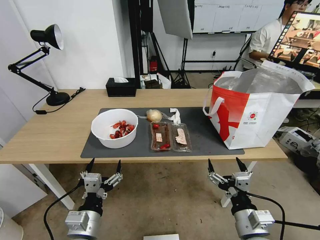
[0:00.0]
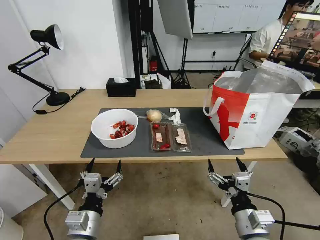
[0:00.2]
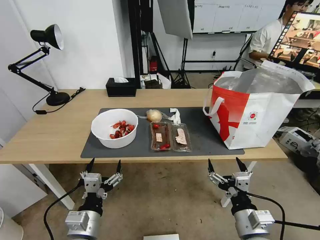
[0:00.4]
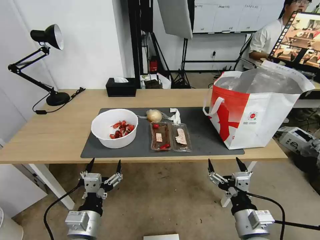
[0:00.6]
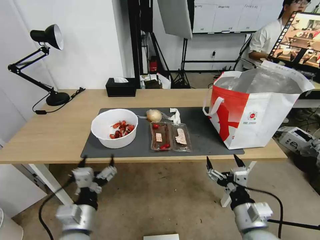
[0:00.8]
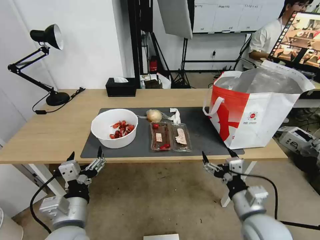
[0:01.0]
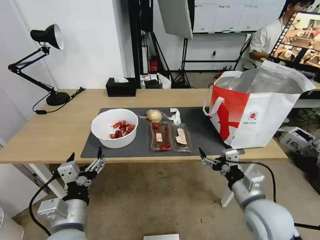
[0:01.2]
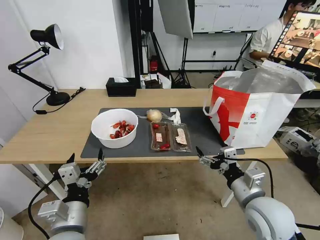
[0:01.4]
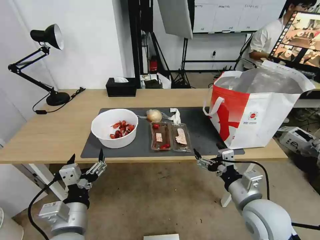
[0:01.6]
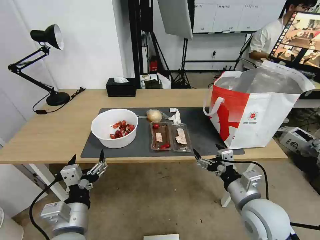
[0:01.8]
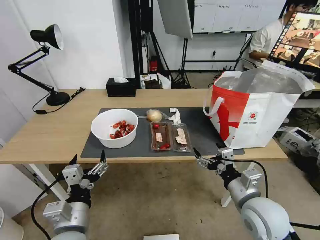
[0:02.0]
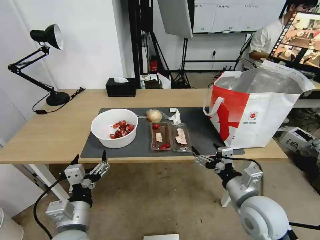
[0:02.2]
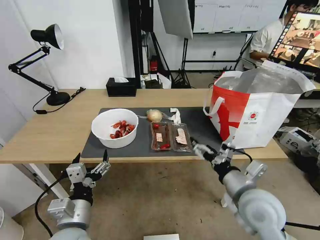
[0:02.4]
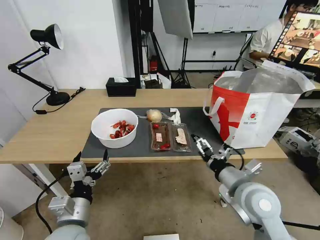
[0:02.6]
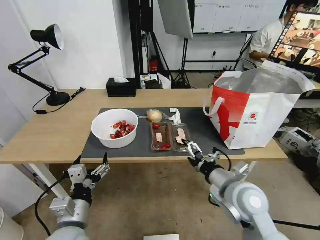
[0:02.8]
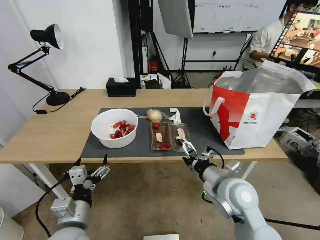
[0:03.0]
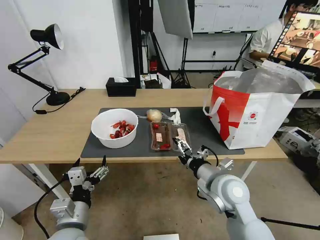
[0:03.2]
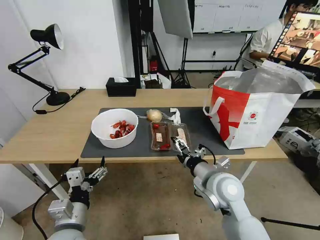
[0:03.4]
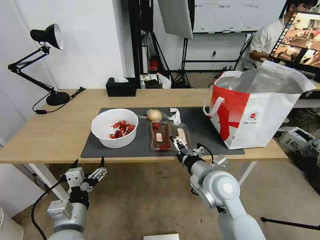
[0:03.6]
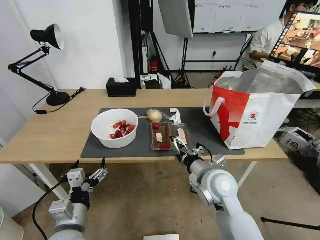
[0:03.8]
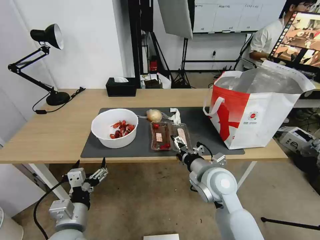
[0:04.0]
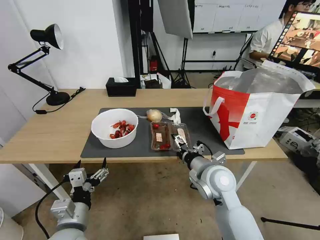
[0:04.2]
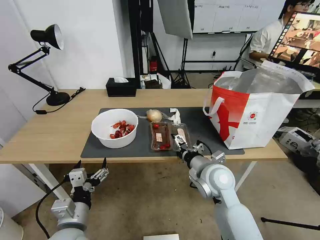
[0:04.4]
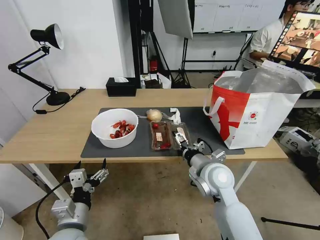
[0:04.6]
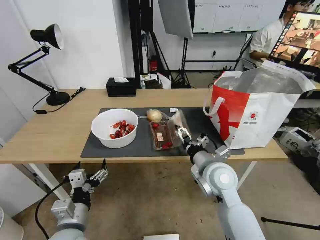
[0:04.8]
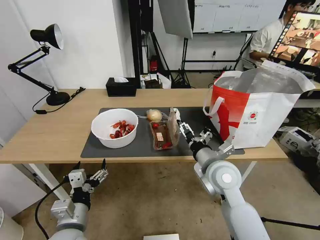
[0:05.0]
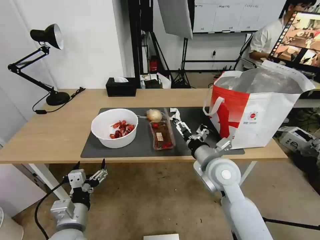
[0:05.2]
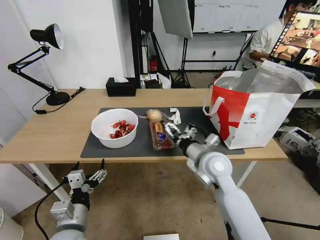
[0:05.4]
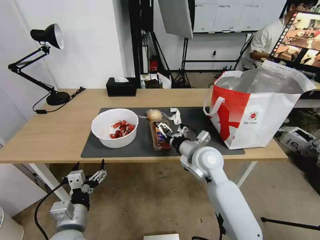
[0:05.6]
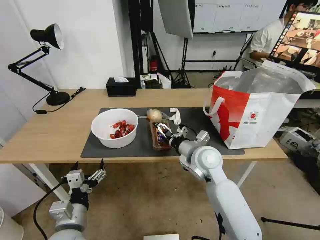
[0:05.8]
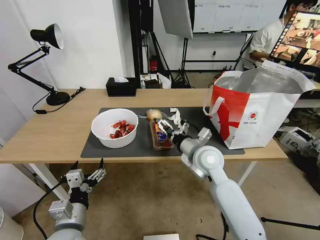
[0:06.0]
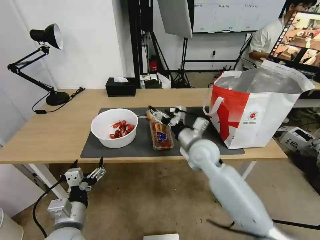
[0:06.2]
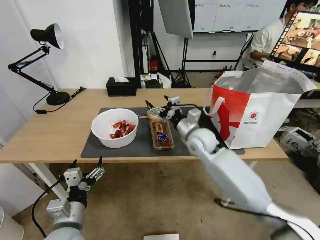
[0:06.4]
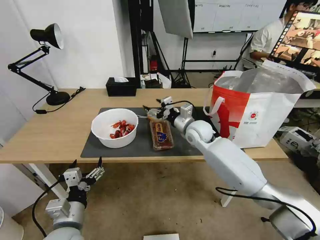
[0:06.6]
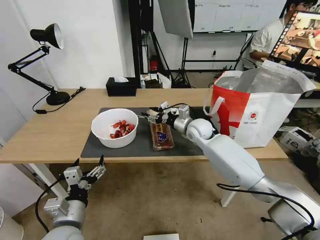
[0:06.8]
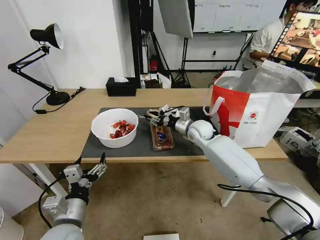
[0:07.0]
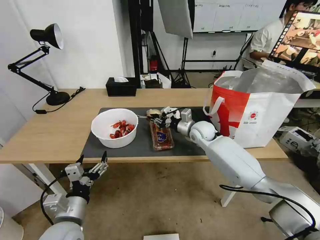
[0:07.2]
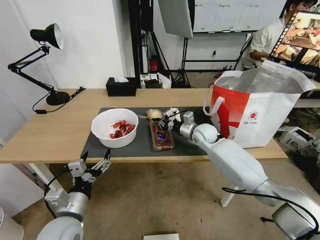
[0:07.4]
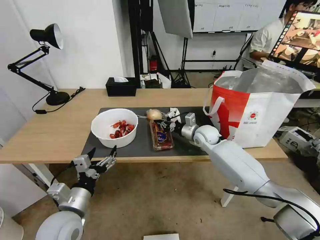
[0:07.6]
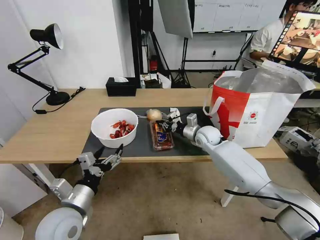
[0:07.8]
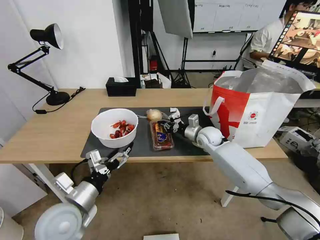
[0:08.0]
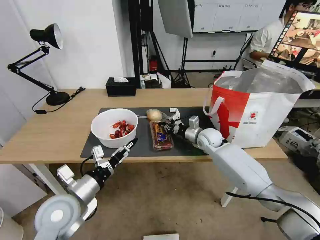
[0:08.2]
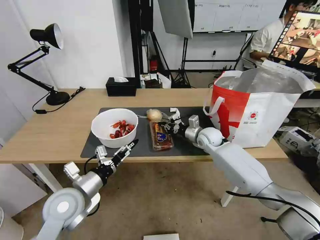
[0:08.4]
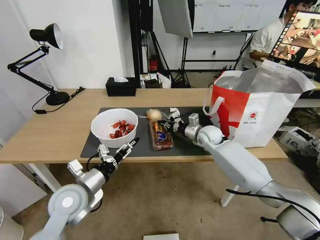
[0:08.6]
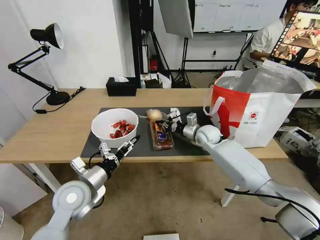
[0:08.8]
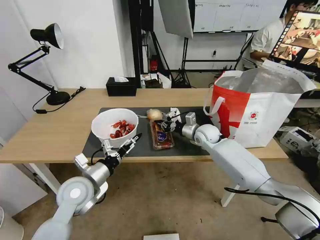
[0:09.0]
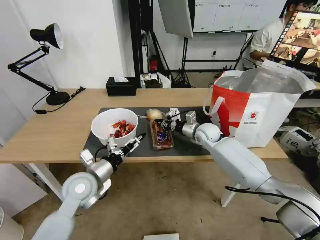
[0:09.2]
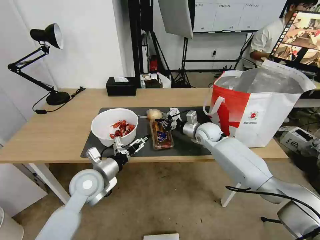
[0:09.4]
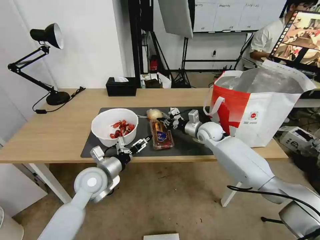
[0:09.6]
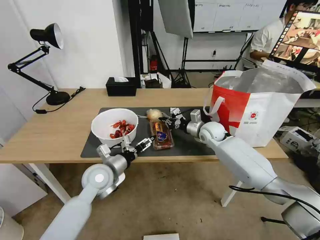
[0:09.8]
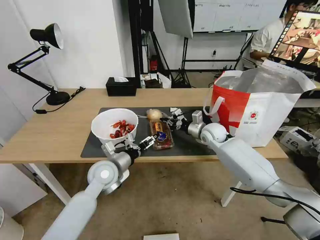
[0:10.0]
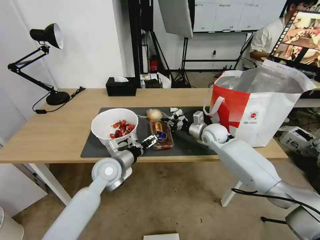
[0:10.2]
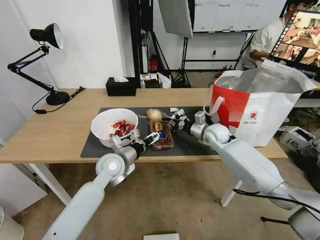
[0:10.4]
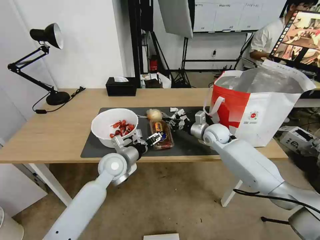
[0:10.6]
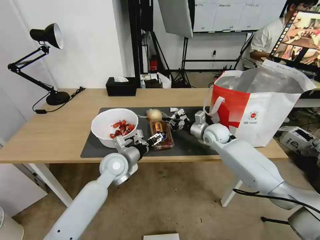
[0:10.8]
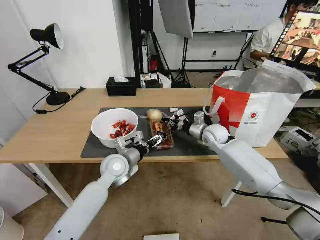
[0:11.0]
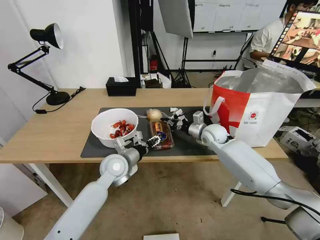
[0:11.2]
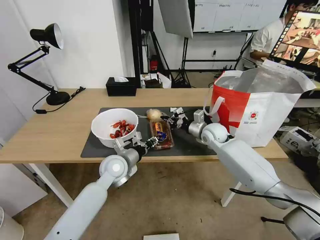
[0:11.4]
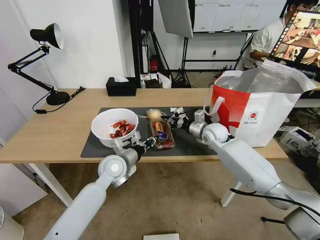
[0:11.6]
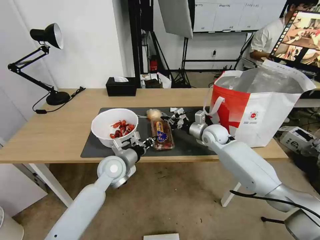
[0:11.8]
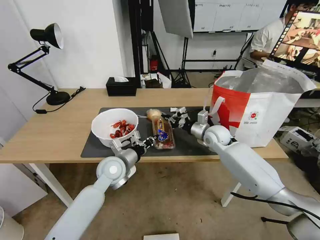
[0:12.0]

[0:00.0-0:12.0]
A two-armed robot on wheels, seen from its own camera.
Task of the whole recording: Pick up the trash from the table and place it into the takeout bag.
0:01.6 to 0:03.0: The right gripper heads forward and to the left, covering roughly 10 cm.
0:03.0 to 0:04.4: The right gripper heads forward, covering some 5 cm.
0:04.4 to 0:06.0: The right gripper is displaced forward by approximately 5 cm.
0:06.0 to 0:07.6: The right gripper heads forward, covering roughly 15 cm, and closes.
0:07.6 to 0:09.0: The left gripper goes roughly 10 cm forward.
0:09.0 to 0:10.4: The left gripper moves forward and to the right, approximately 10 cm.
0:10.4 to 0:12.0: The left gripper closes its fingers.

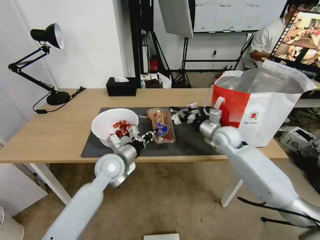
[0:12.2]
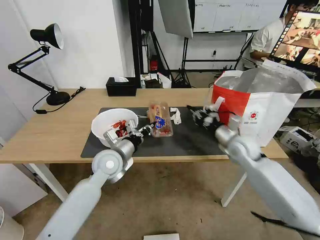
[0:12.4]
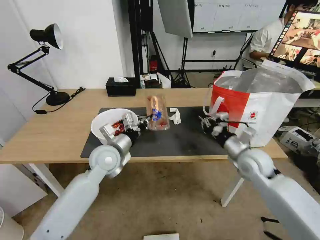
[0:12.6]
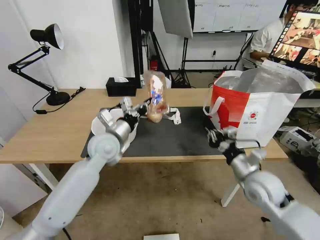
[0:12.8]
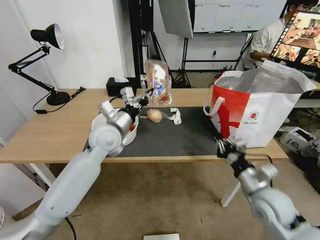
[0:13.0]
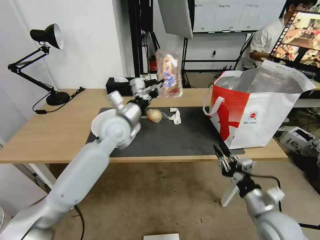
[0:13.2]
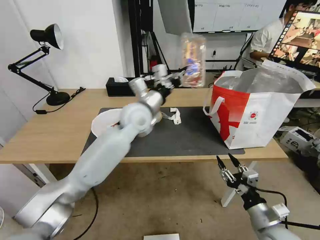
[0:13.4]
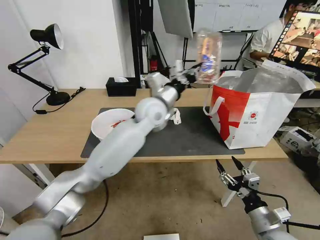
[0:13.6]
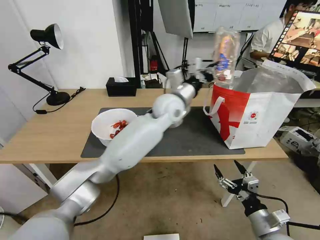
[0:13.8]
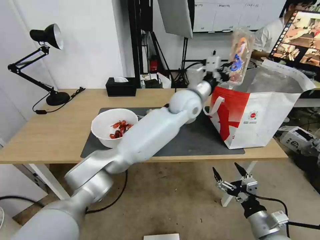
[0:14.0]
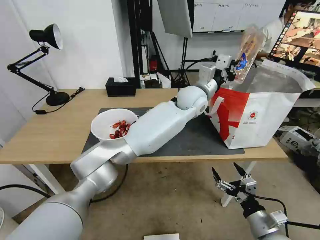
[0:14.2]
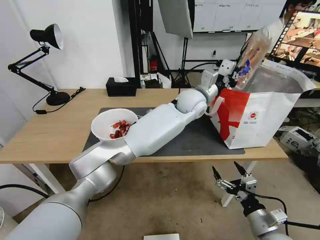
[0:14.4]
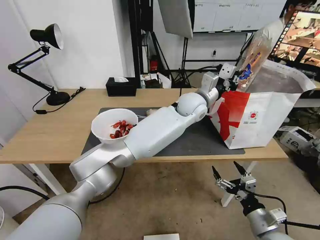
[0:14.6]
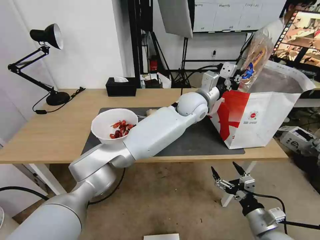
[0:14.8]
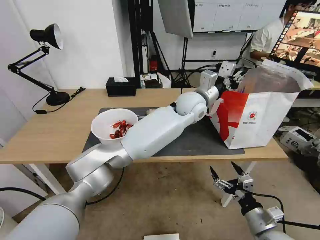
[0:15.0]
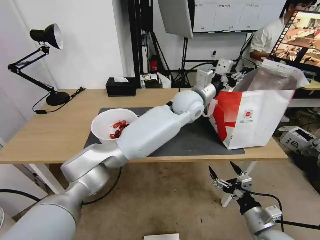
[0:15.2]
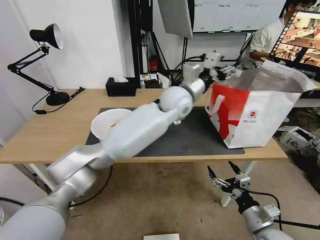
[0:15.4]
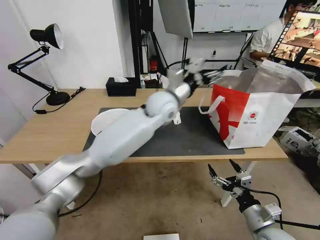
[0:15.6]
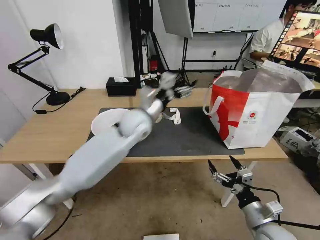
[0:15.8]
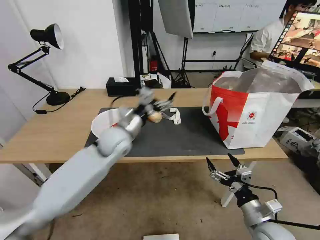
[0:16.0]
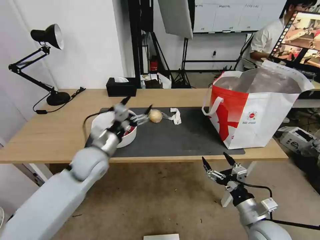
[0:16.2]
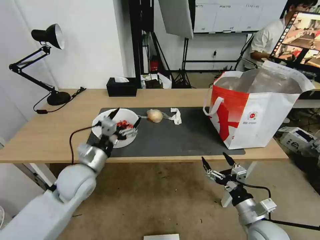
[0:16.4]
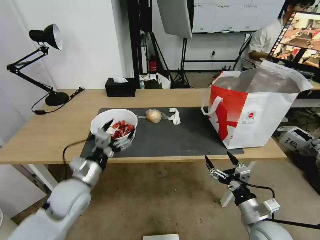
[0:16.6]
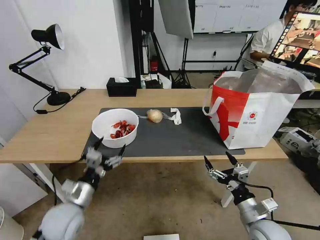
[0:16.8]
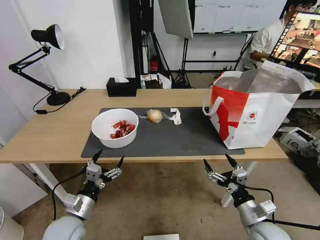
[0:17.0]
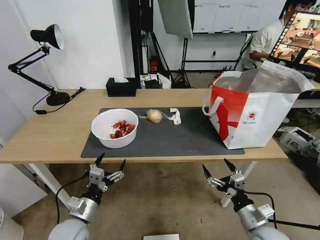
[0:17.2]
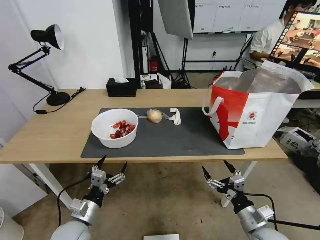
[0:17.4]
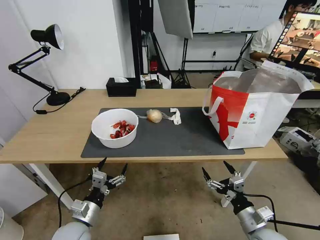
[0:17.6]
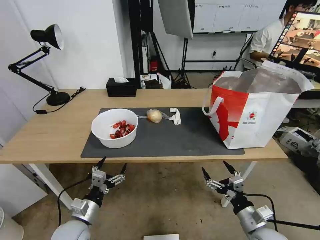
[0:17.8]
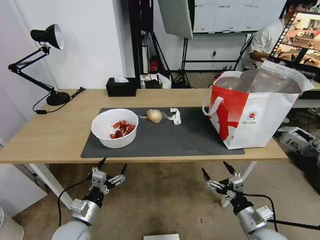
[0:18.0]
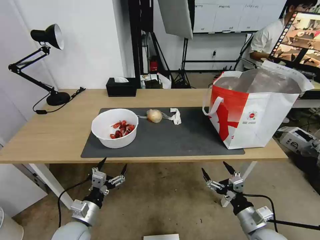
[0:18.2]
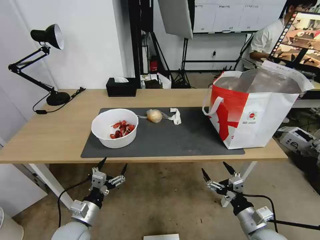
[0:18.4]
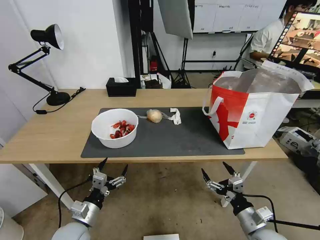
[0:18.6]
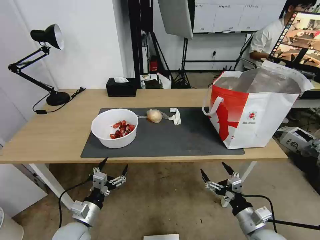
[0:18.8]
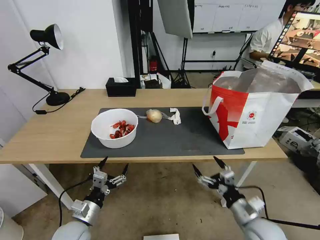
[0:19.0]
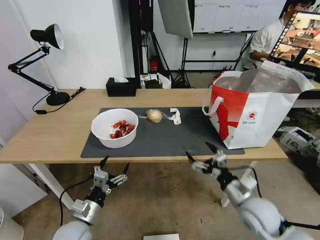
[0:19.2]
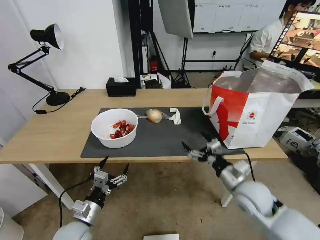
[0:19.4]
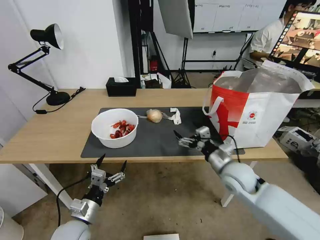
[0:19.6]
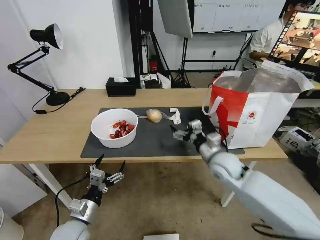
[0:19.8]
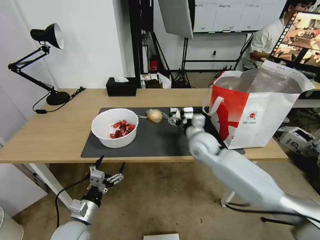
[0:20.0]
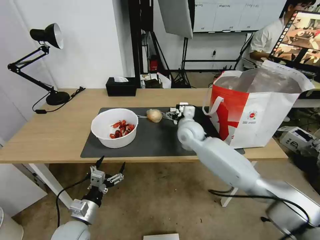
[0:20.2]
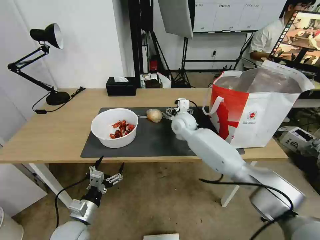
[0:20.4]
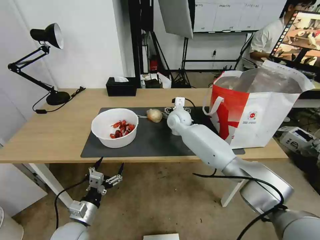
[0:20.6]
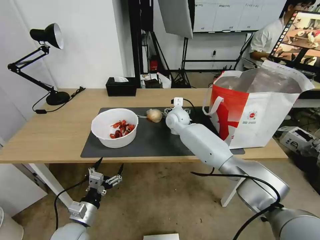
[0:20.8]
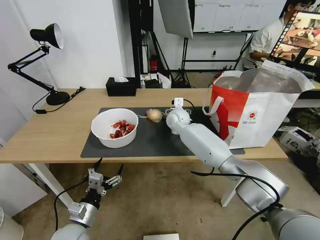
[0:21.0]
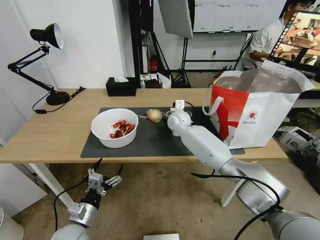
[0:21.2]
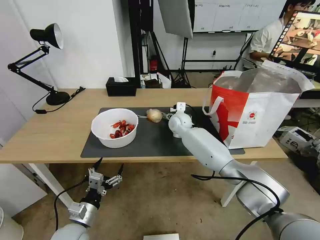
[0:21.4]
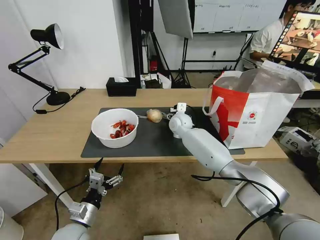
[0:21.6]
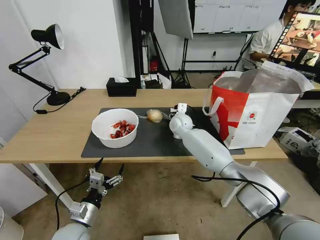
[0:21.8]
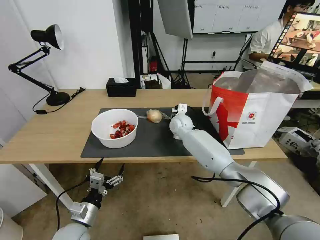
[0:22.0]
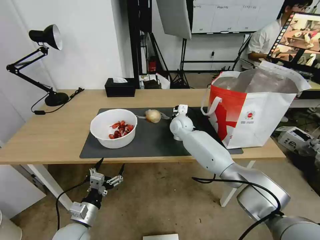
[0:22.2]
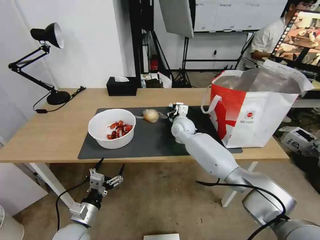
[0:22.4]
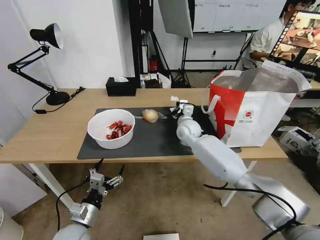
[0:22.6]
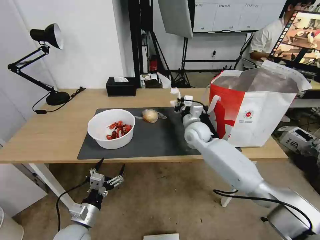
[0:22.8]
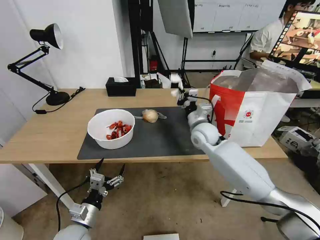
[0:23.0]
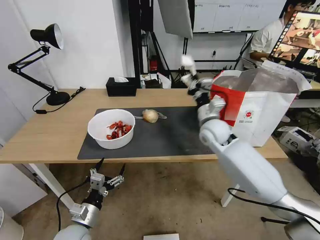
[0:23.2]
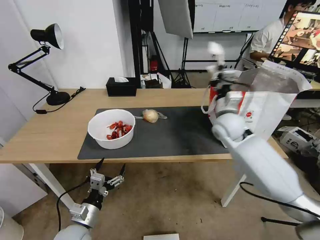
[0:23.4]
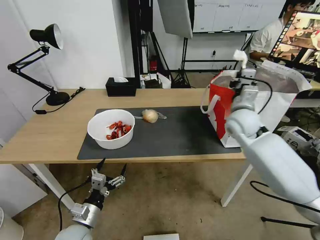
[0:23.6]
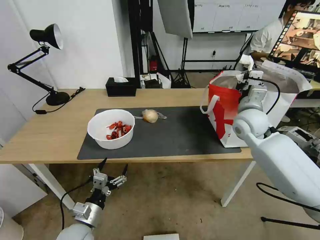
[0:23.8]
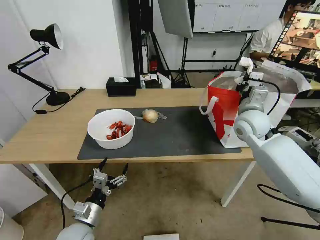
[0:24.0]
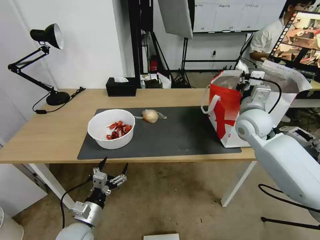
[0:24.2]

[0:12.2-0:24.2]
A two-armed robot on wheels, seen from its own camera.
Task of the whole recording: Pick up the trash from the table and place it into the takeout bag.
0:12.2 to 0:13.8: The right gripper heads backward, covering approximately 35 cm, and opens up. Meanwhile the left gripper shifts about 30 cm to the right, upward and forward.
0:13.8 to 0:15.2: The left gripper opens up.
0:15.2 to 0:16.6: The left gripper is displaced to the left, backward and downward by approximately 50 cm, and opens up.
0:16.6 to 0:18.2: The left gripper is displaced downward and backward by approximately 10 cm.
0:18.2 to 0:19.8: The right gripper travels forward, to the left and upward by about 25 cm.
0:19.8 to 0:21.2: The right gripper heads forward and to the left, covering approximately 25 cm.
0:21.2 to 0:22.6: The right gripper moves about 5 cm, and closes its fingers.
0:22.6 to 0:24.2: The right gripper travels to the right, upward and backward by roughly 25 cm.
